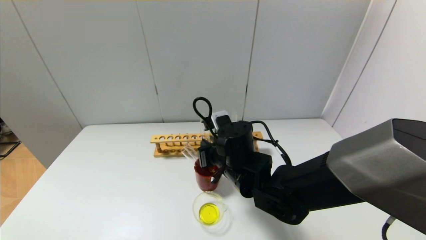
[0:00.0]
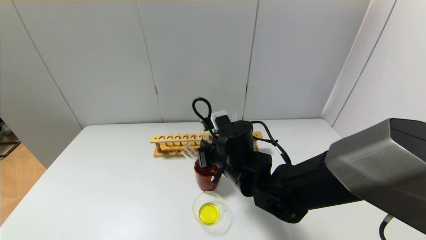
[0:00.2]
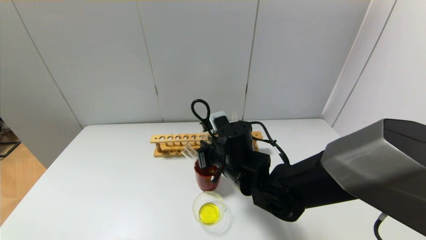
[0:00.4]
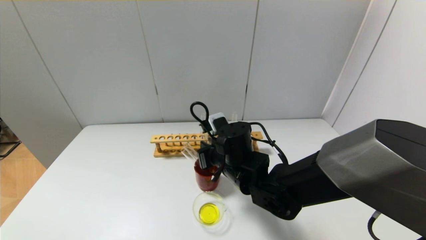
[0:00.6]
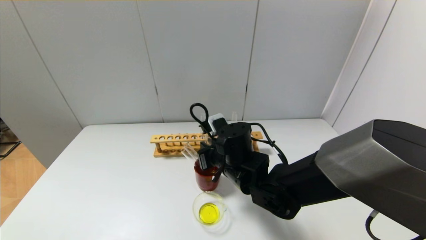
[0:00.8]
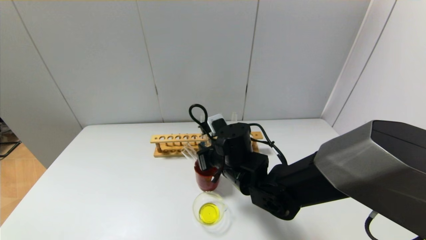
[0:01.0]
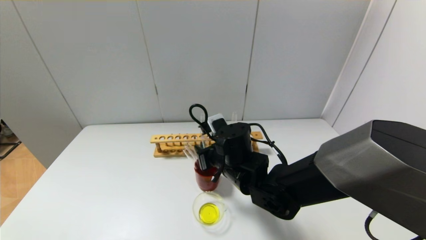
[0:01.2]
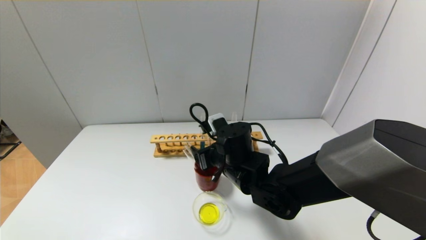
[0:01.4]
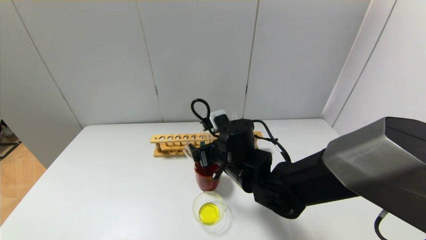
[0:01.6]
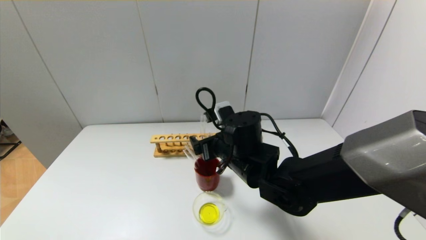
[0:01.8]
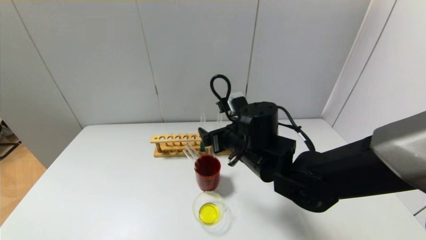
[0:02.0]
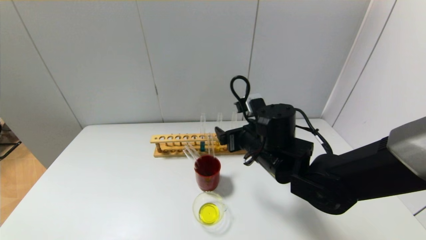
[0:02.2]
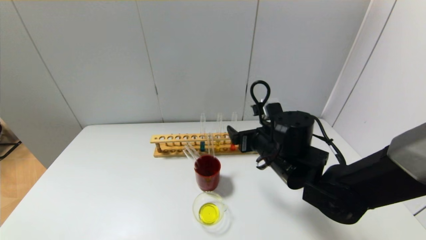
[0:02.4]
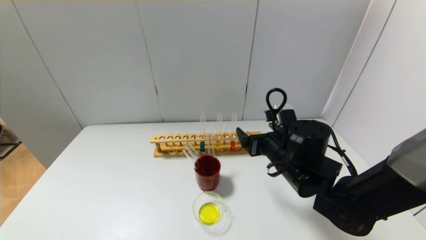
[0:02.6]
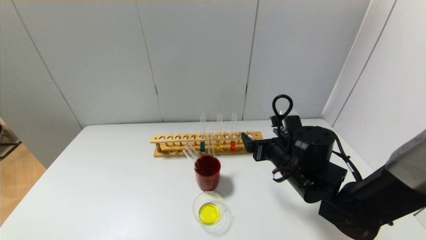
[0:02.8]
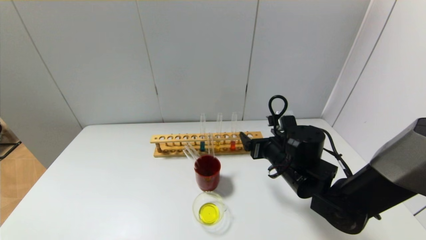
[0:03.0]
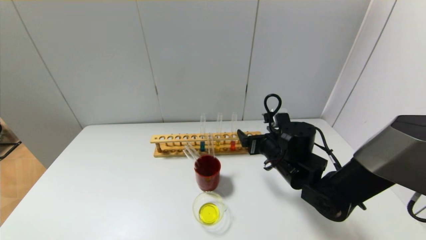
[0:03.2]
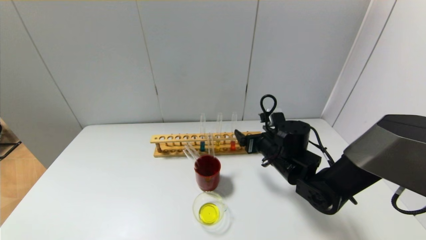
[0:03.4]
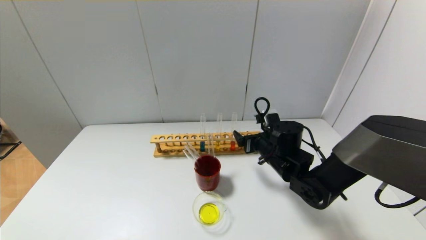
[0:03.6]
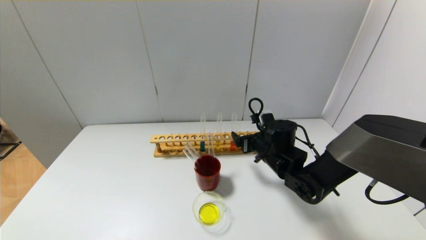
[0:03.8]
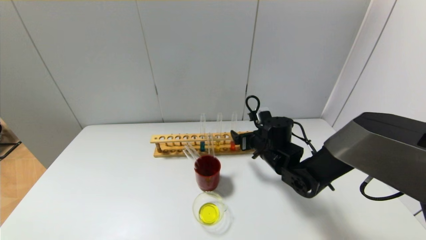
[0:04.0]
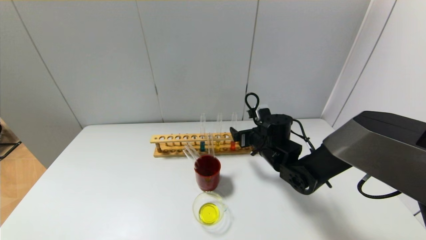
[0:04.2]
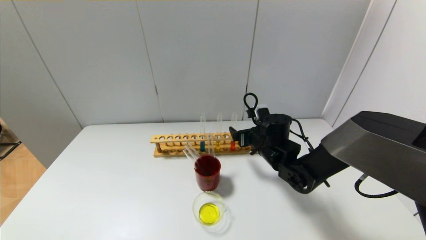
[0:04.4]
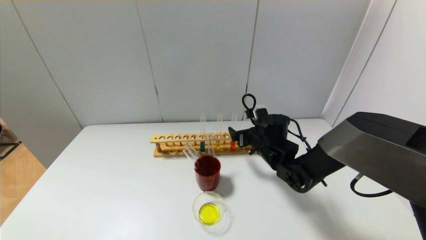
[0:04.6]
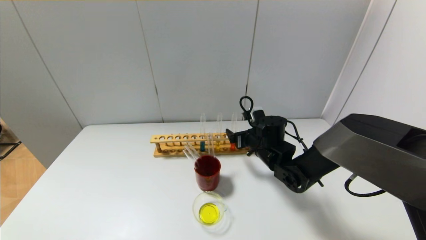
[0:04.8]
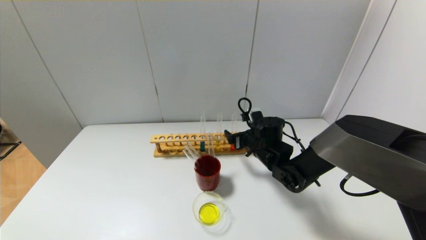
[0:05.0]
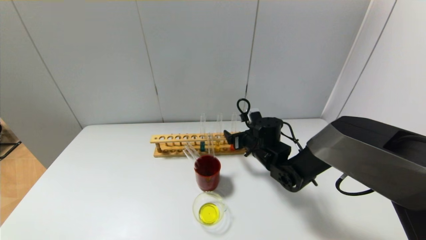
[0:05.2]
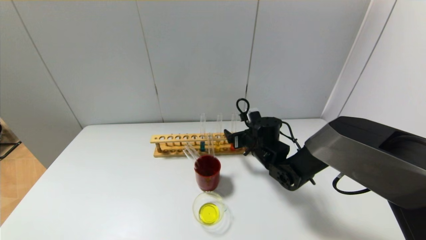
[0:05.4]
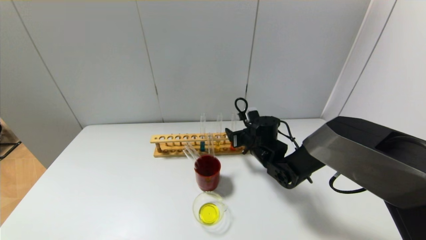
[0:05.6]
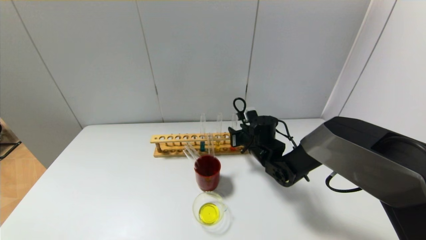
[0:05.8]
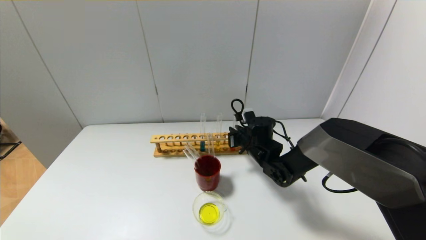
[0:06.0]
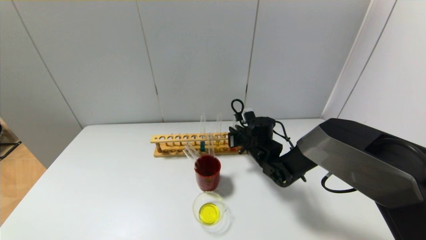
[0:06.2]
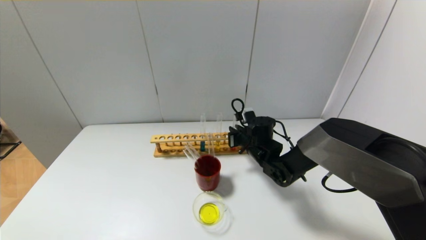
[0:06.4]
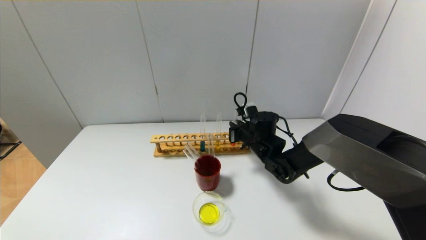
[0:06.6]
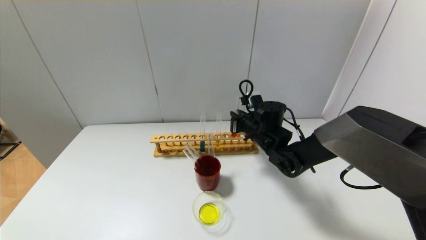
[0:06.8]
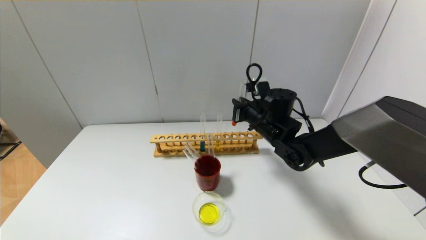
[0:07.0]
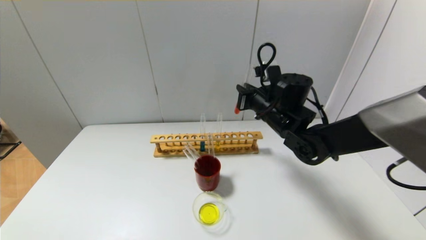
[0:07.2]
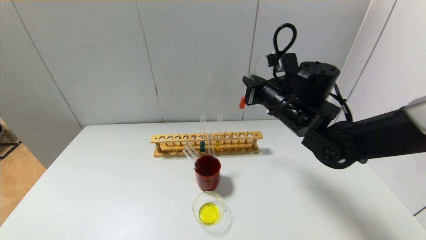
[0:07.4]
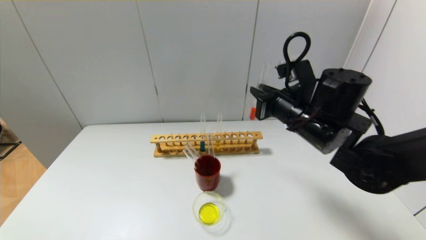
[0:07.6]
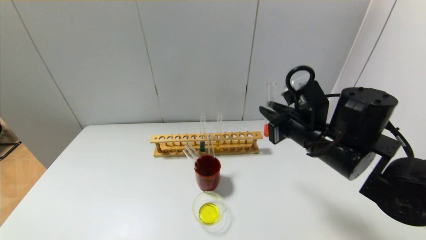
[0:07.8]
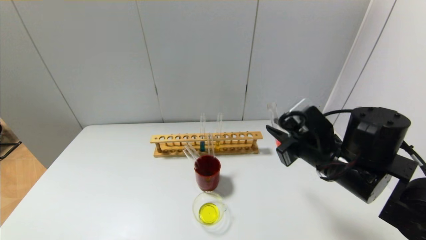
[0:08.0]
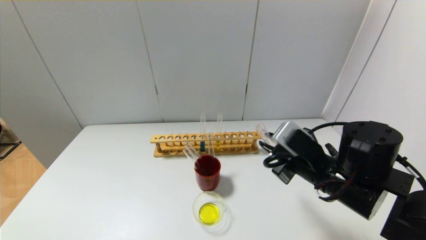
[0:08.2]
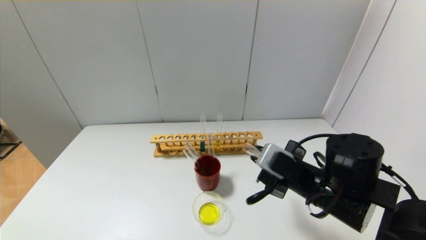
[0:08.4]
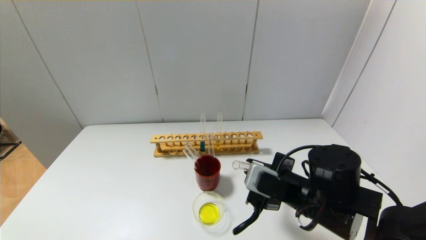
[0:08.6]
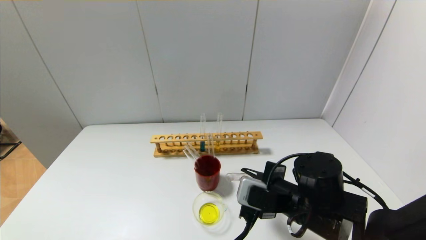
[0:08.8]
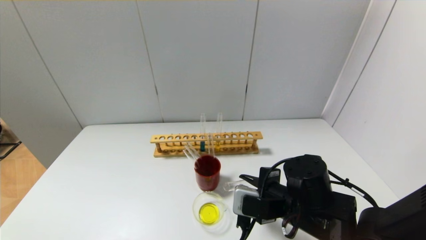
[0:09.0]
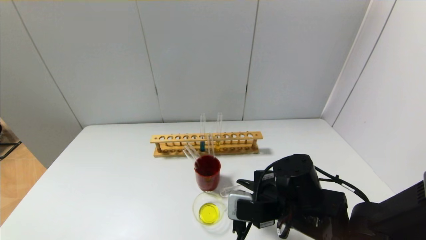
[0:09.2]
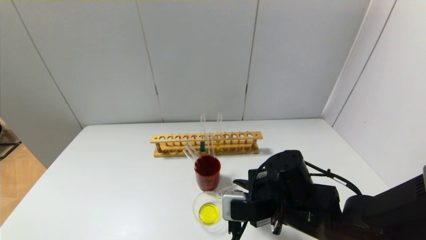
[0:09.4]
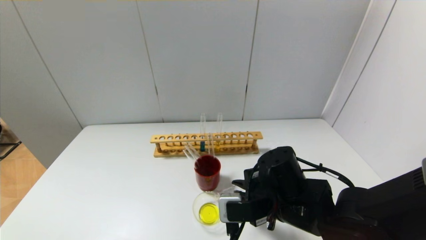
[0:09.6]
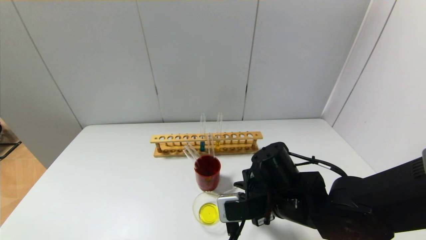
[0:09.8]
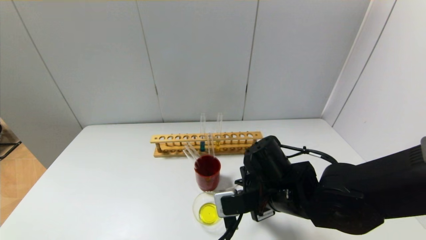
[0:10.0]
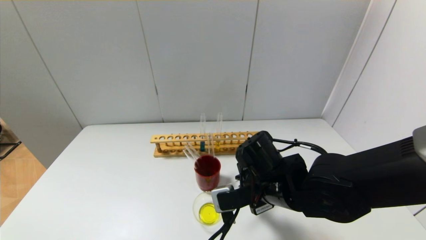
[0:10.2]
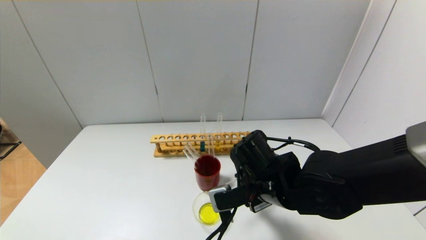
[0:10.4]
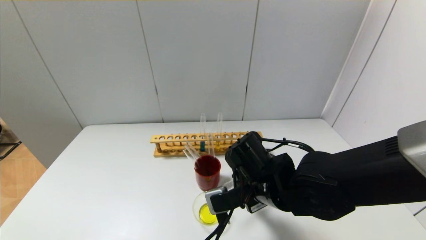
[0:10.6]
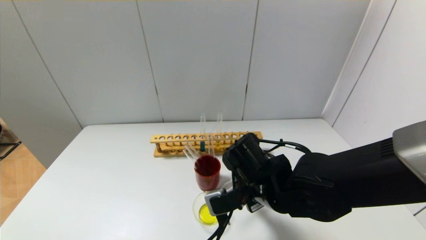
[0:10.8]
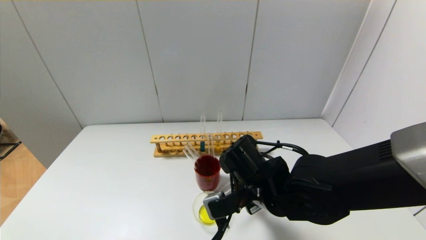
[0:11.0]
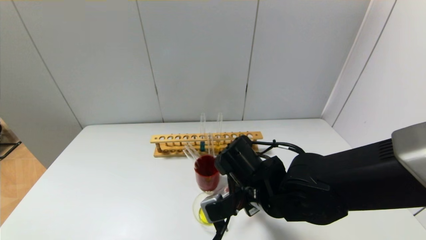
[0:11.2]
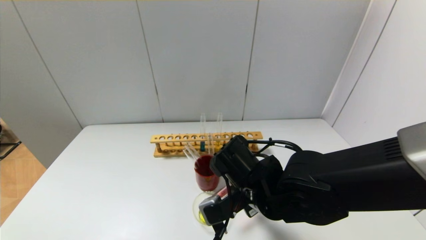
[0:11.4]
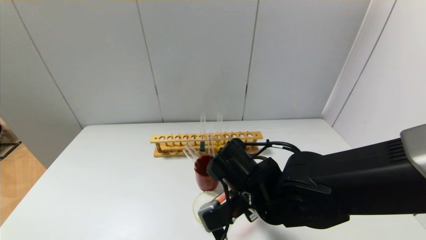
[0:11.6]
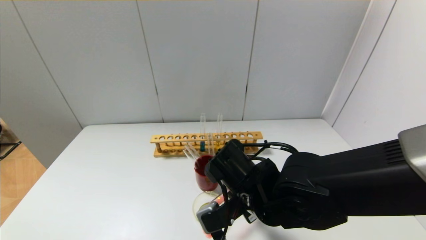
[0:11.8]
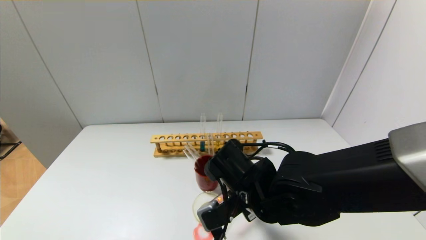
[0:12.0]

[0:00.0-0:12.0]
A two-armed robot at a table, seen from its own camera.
Step, 0:01.4 to 0:06.2: Grasp the red reagent with the right gripper.
0:00.0 to 0:01.6: The right gripper opens its fingers.
0:01.6 to 0:03.0: The right gripper goes roughly 10 cm to the right.
0:03.0 to 0:04.4: The right gripper shifts approximately 10 cm forward.
0:04.4 to 0:06.0: The right gripper closes up.
0:06.0 to 0:07.6: The right gripper moves upward and backward, roughly 20 cm.
0:07.6 to 0:09.0: The right gripper moves downward and backward, about 15 cm.
0:09.0 to 0:10.4: The right gripper moves approximately 5 cm.
0:10.4 to 0:12.0: The grippers stay close to where they were, moving slightly.

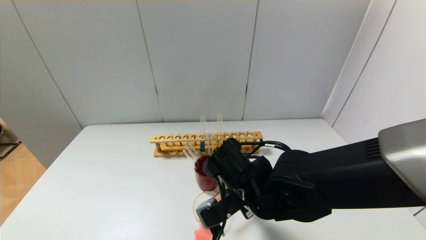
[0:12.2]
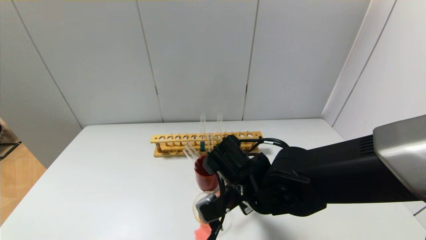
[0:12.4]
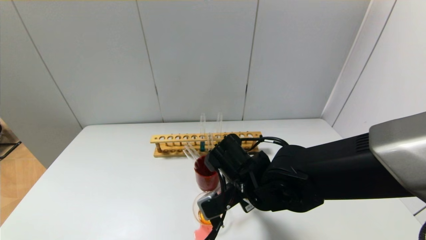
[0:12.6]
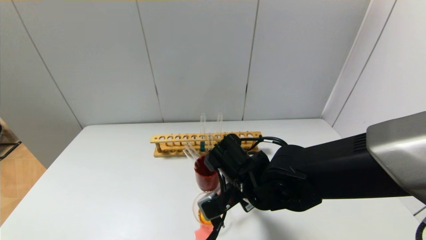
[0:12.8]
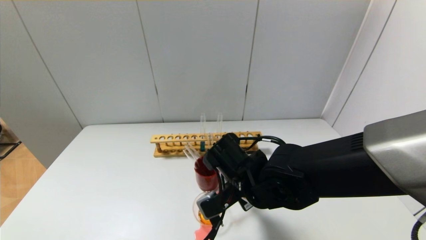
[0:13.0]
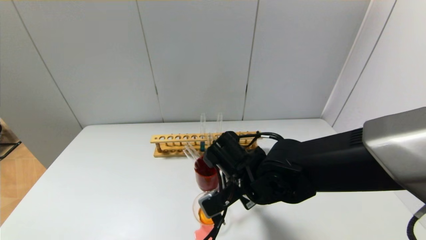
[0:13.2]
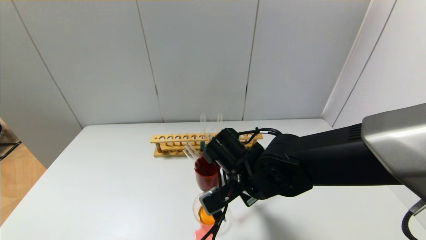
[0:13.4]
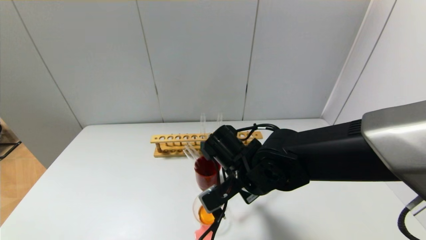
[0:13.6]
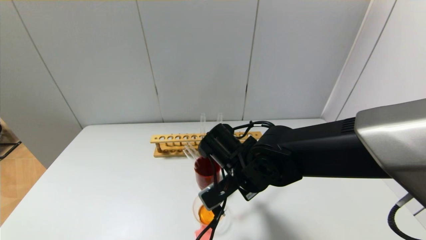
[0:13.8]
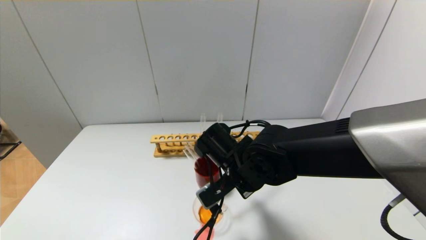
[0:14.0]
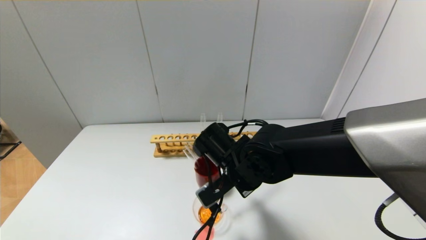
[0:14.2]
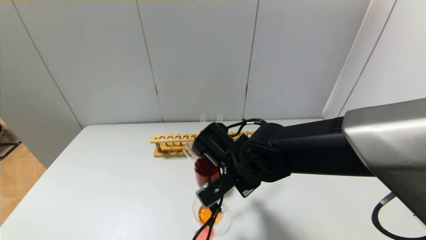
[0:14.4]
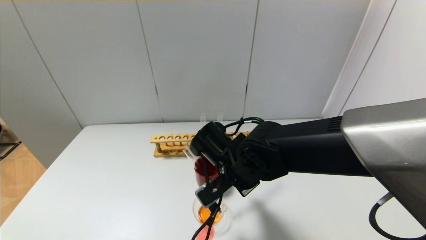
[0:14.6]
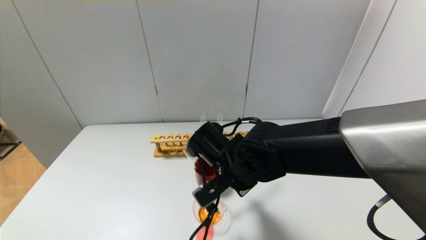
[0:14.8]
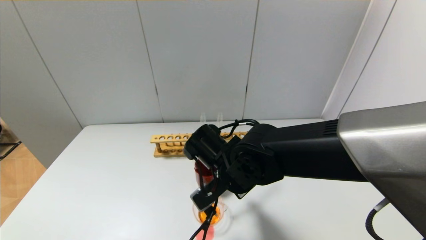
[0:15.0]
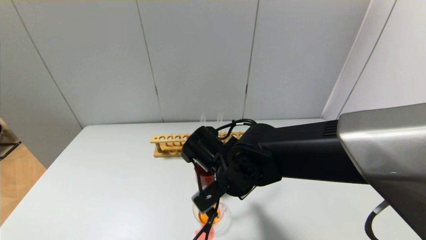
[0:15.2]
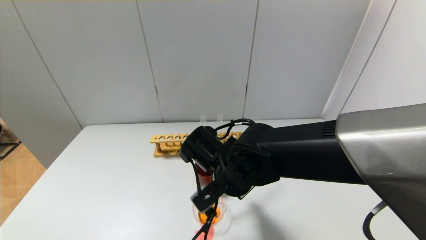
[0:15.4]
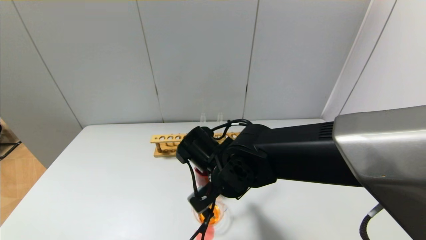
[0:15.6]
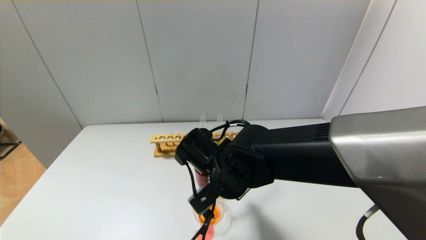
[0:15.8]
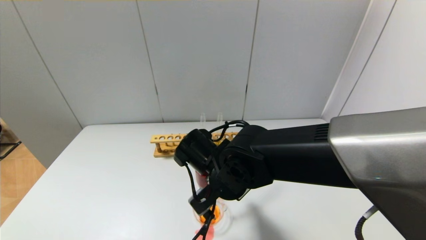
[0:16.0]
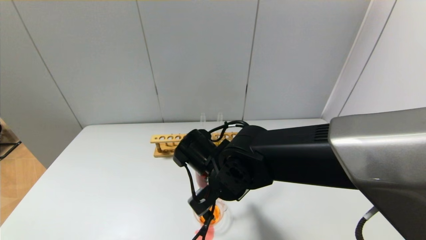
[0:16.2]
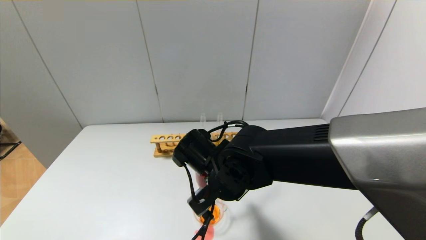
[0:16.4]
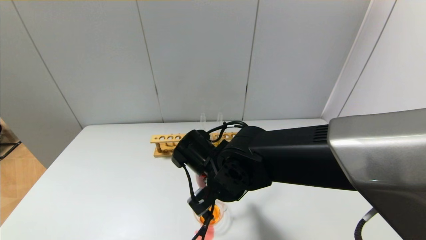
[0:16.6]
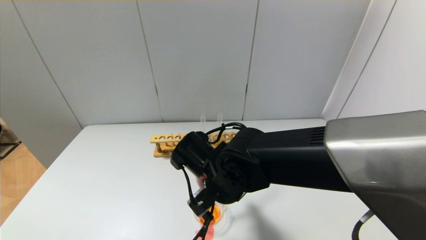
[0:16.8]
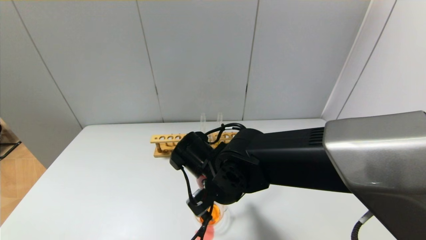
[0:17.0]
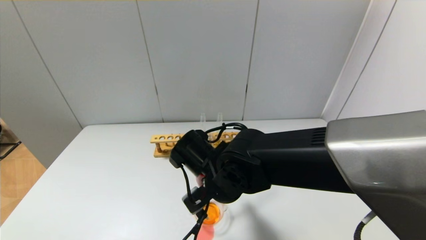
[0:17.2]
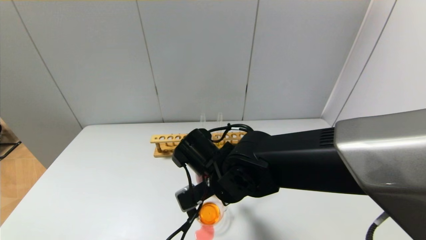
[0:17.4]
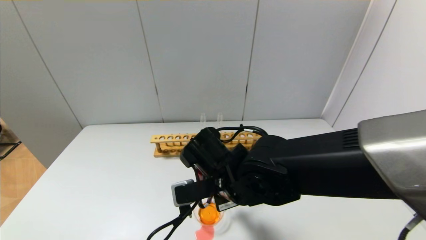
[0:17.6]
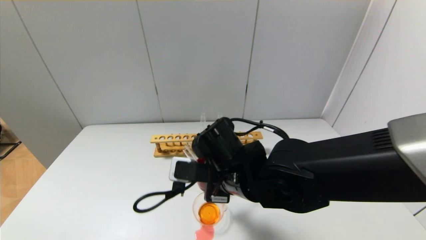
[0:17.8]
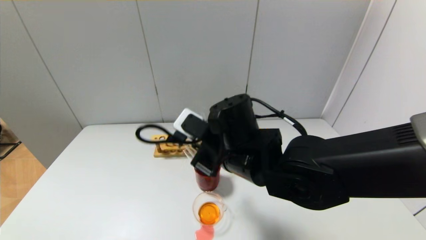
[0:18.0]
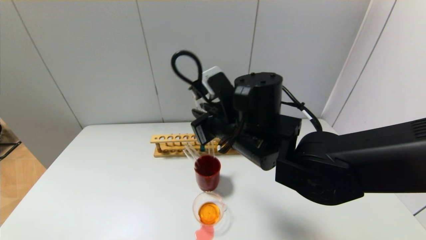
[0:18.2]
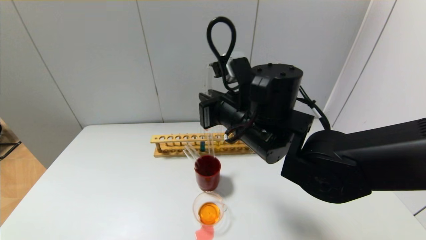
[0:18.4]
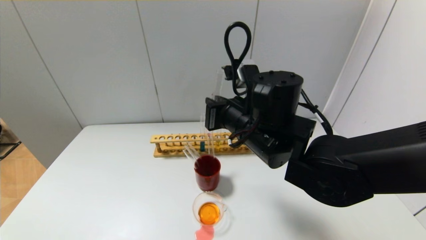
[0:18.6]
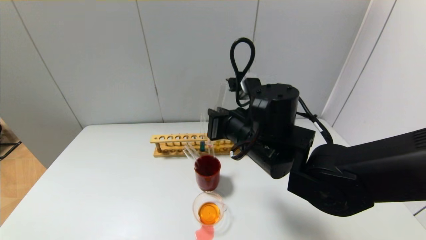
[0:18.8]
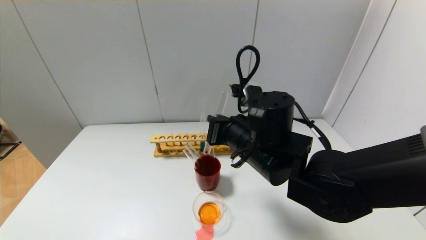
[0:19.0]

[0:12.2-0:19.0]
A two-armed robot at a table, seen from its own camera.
Step, 0:12.2 to 0:16.6: Pour the red reagent into the graduated cylinder with the right gripper.
0:12.2 to 0:16.2: The grippers move only a little.
0:17.6 to 0:19.0: The right gripper shifts roughly 5 cm upward.
